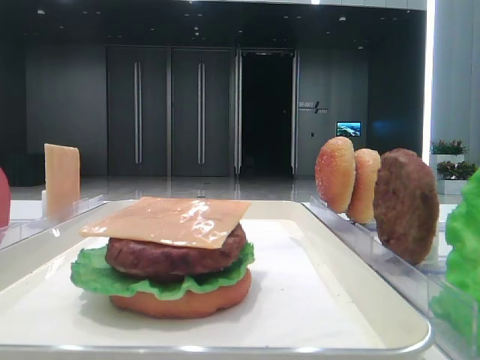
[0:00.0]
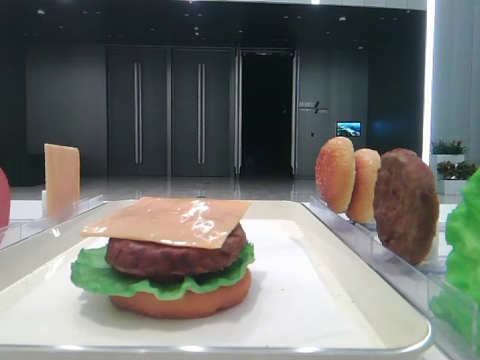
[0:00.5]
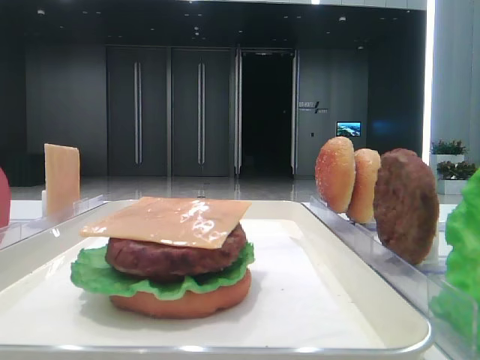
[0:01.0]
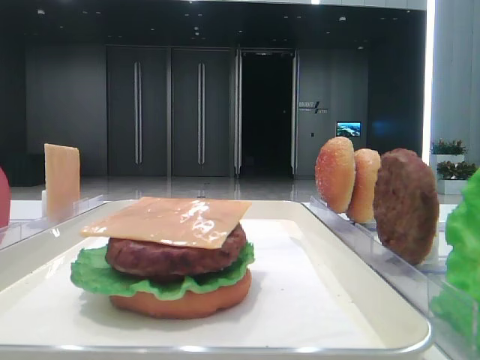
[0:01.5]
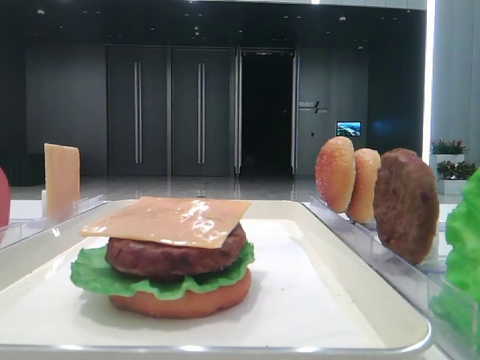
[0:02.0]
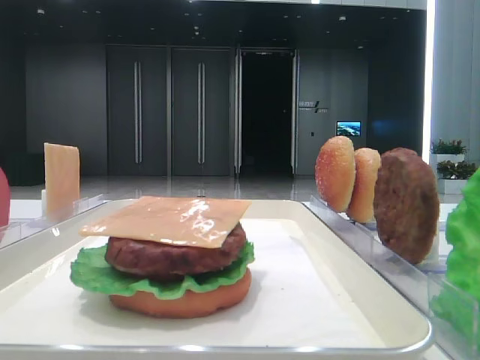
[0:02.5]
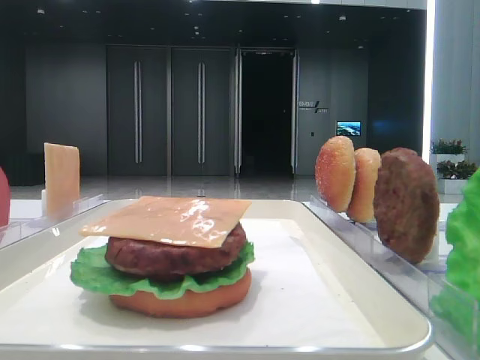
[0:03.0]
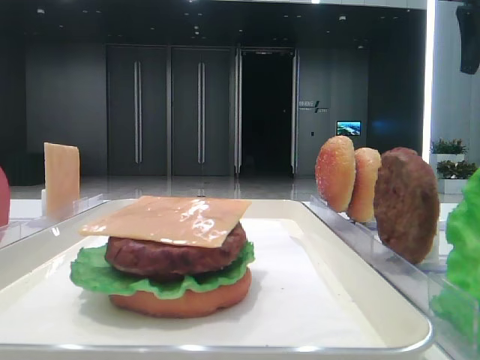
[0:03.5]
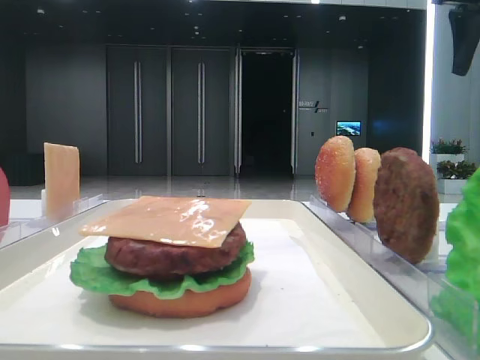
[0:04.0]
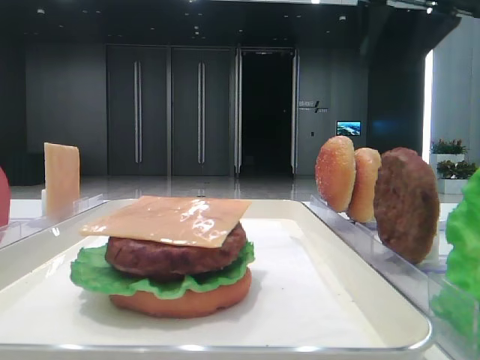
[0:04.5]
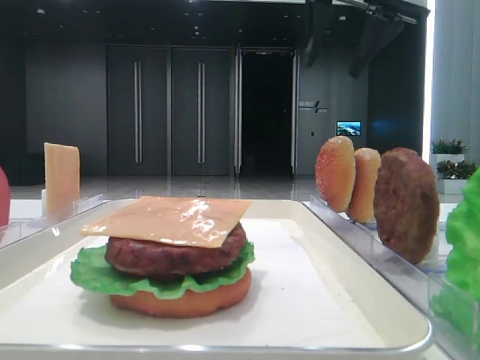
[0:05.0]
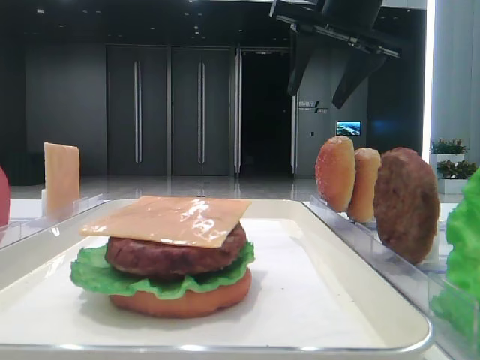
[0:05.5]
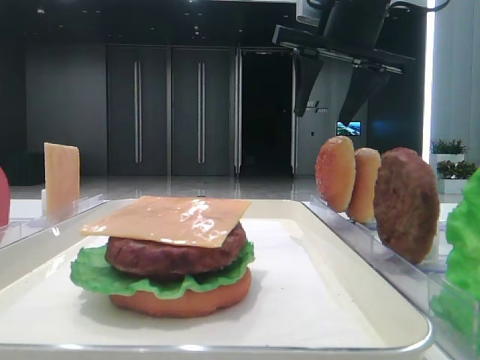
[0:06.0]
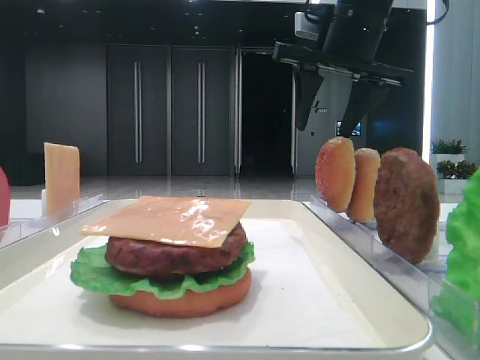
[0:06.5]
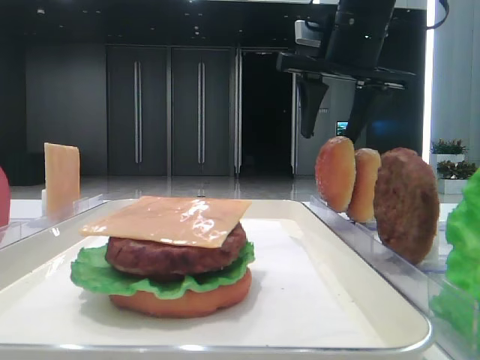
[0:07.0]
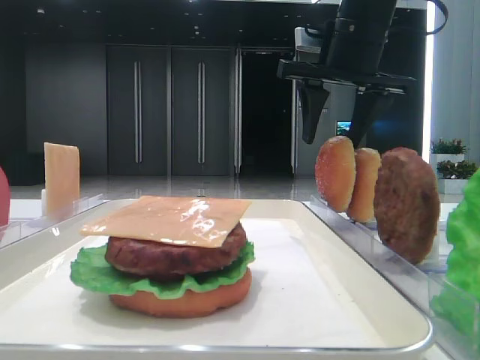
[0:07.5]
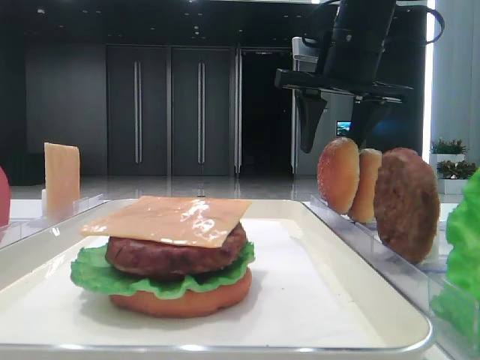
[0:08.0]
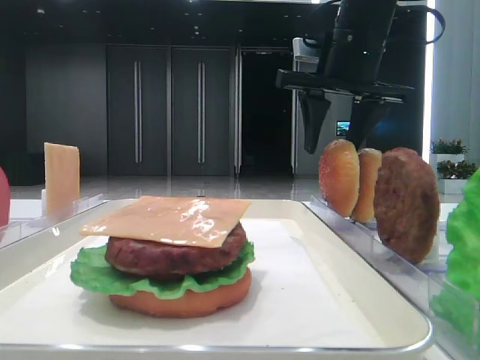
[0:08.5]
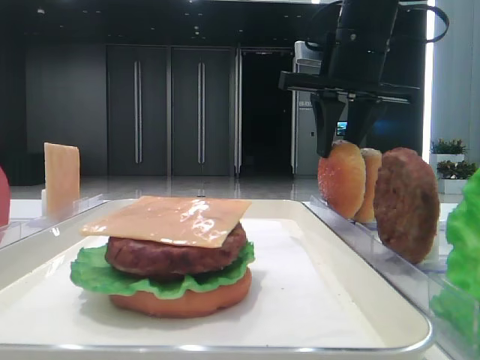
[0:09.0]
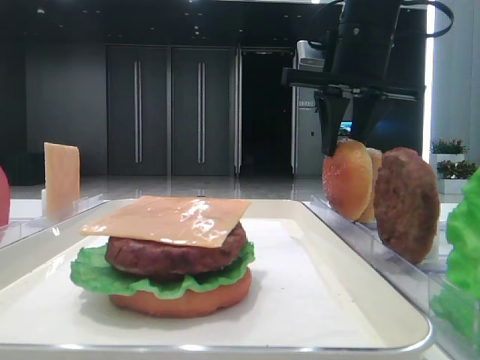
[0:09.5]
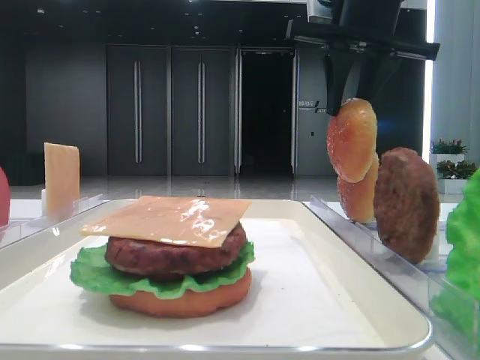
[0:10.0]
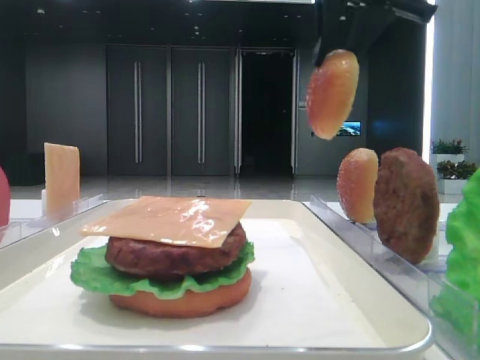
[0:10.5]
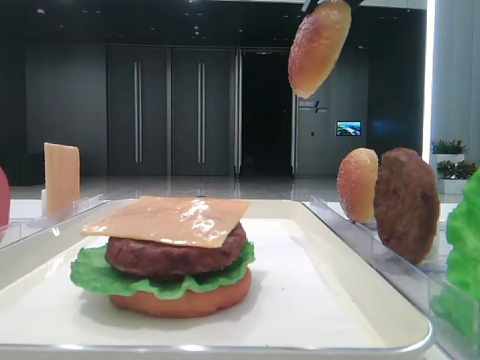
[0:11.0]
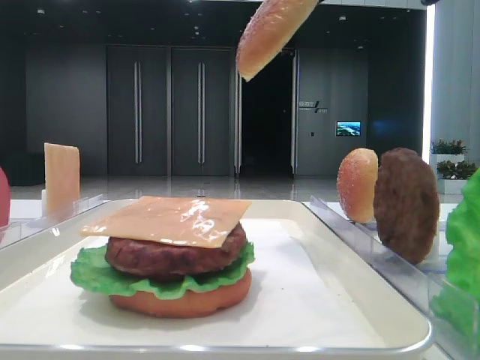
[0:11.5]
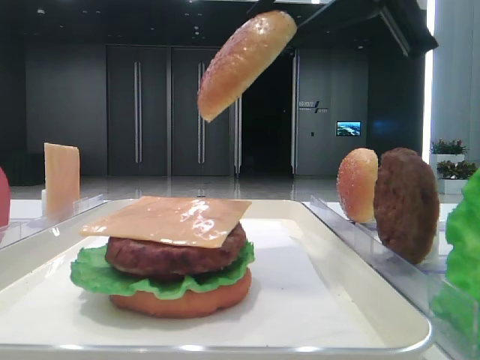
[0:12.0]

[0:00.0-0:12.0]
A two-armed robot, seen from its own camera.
Step, 0:00.0 to 0:09.0: Pick up the top bread slice with the right hand.
0:02.0 to 0:04.0: The right gripper shifts roughly 30 cm forward.
0:04.0 to 0:06.0: The right gripper travels to the left by about 15 cm.
0:06.0 to 0:08.0: The grippers move only a little.
0:08.0 to 0:10.0: The right gripper ends up approximately 5 cm from where it was, and closes.
0:10.0 to 0:12.0: The right gripper heads backward, covering some 15 cm.

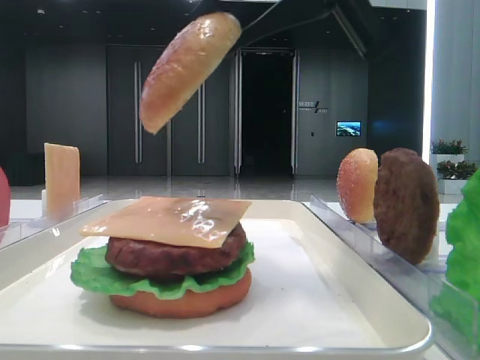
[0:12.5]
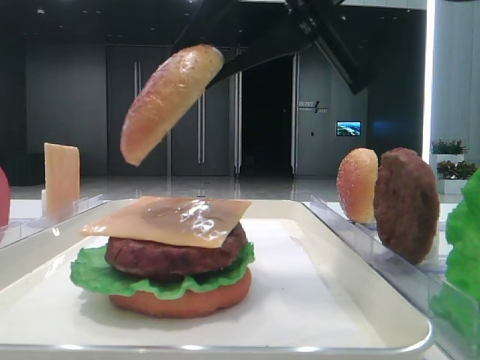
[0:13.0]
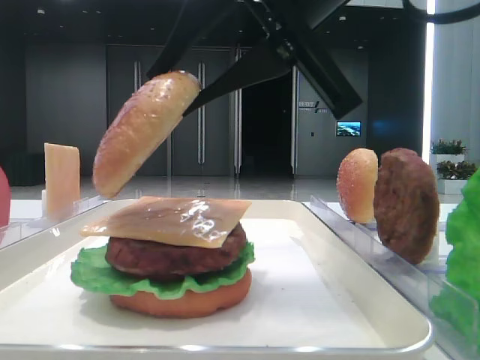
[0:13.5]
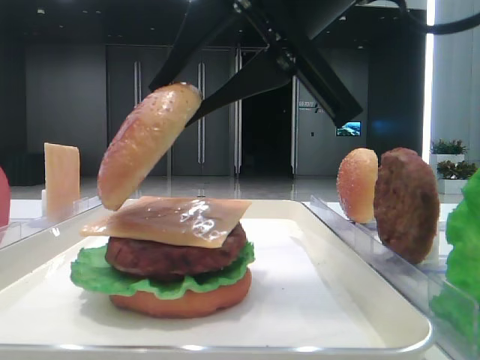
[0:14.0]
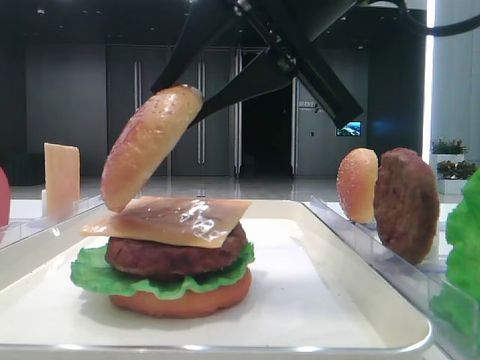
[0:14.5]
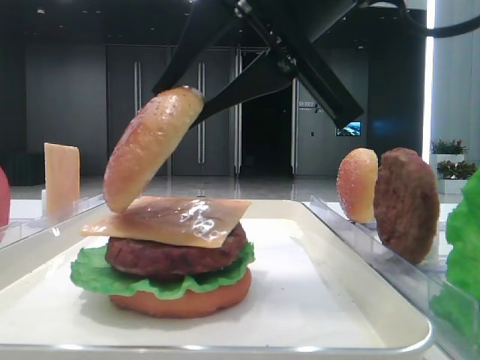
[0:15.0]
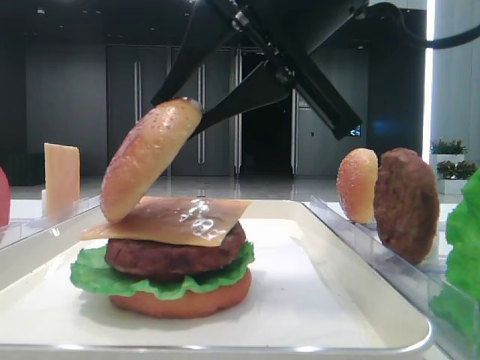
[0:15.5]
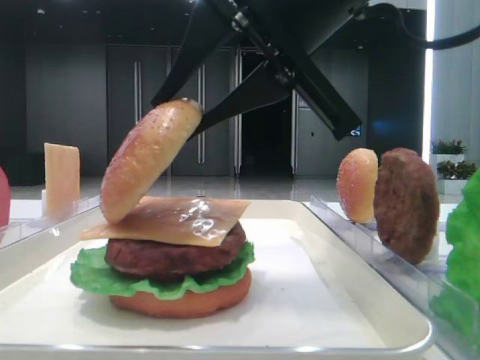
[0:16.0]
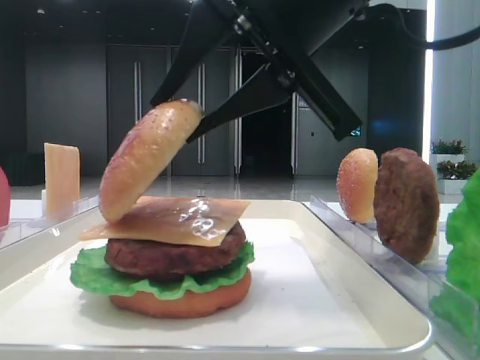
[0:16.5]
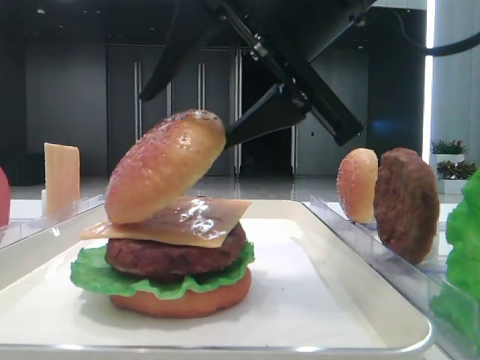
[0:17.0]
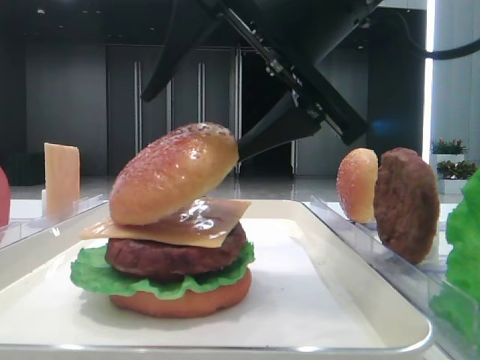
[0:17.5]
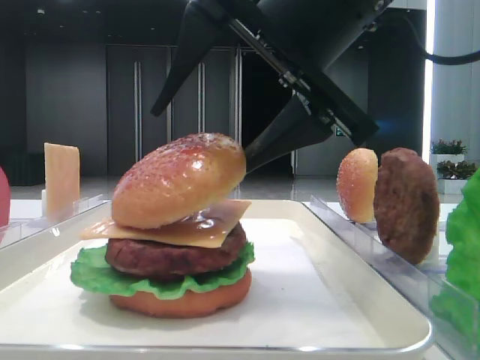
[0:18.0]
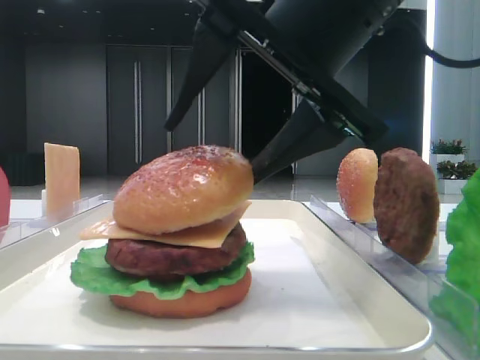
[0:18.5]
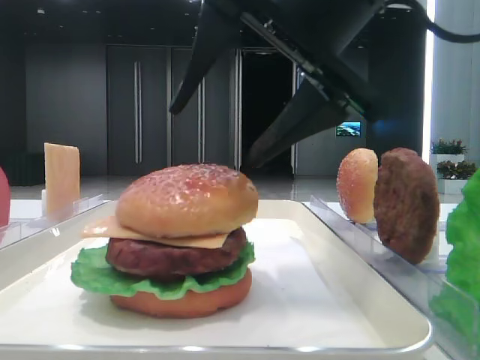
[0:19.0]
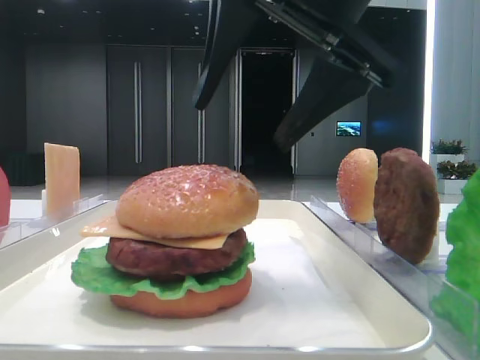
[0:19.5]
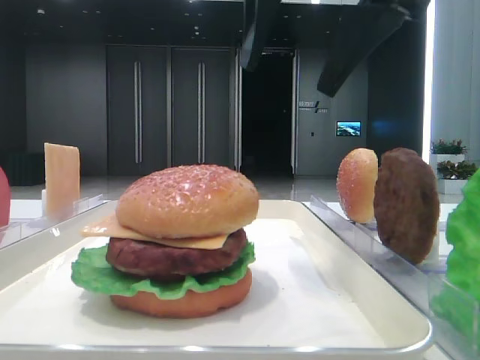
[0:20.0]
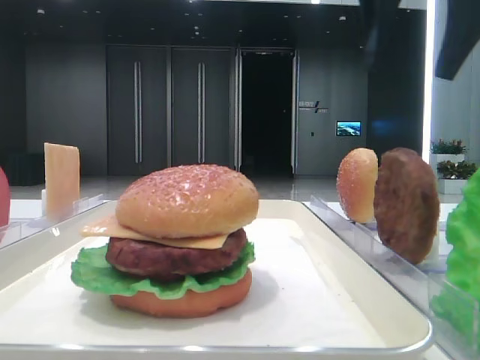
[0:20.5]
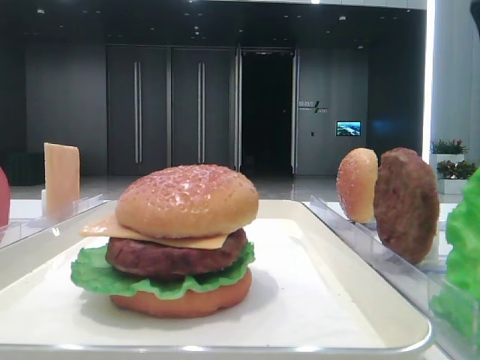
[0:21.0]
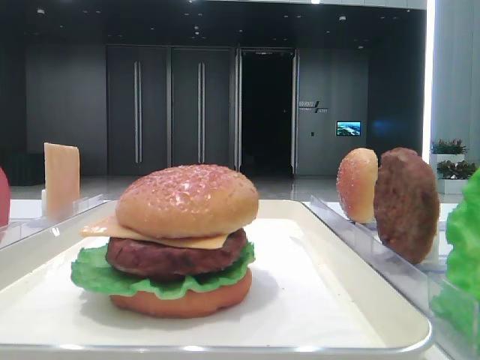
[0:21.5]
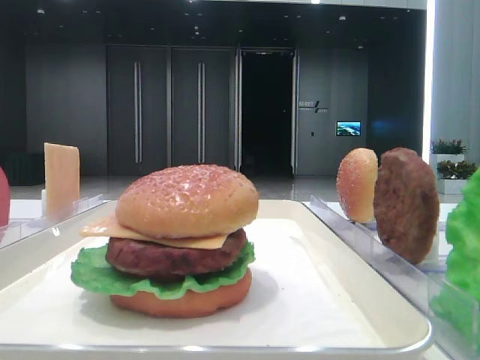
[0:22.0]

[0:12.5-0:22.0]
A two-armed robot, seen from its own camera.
Step, 0:12.5 to 0:18.5: Place the top bread slice on the cheese with the right hand.
0:12.5 to 0:14.5: The right gripper ends up roughly 5 cm from where it was.
0:14.5 to 0:16.5: Neither gripper changes place.
0:16.5 to 0:18.0: The right gripper opens its fingers.
0:18.0 to 0:20.0: The right gripper shifts some 5 cm upward.
0:20.0 to 0:22.0: The right gripper moves to the right, some 25 cm.

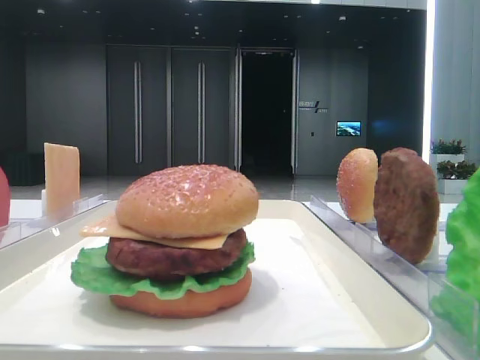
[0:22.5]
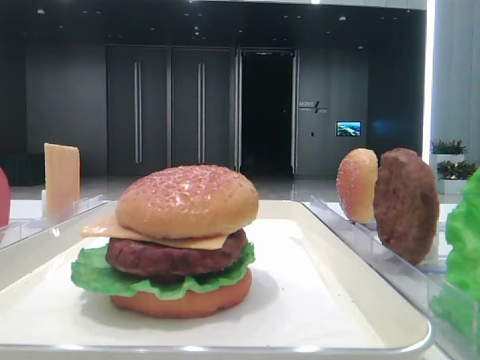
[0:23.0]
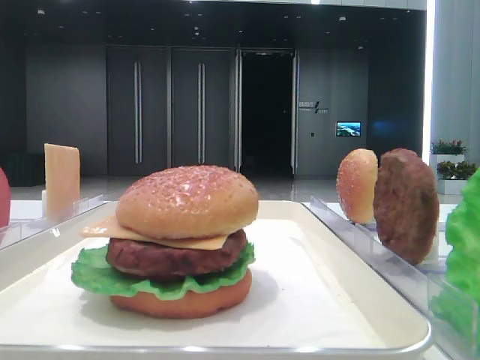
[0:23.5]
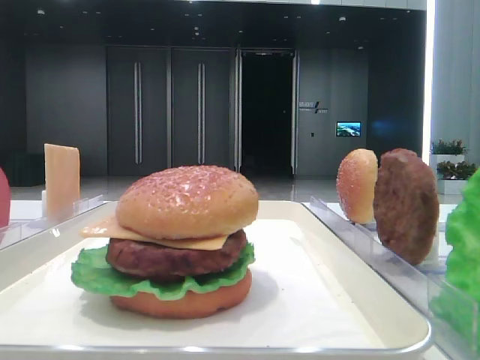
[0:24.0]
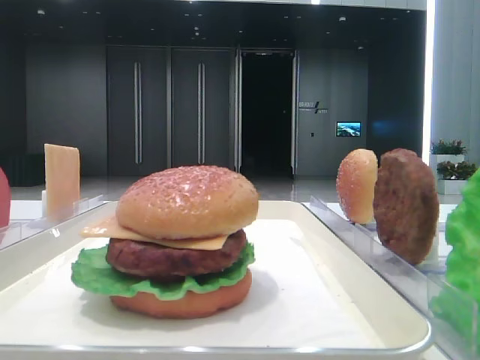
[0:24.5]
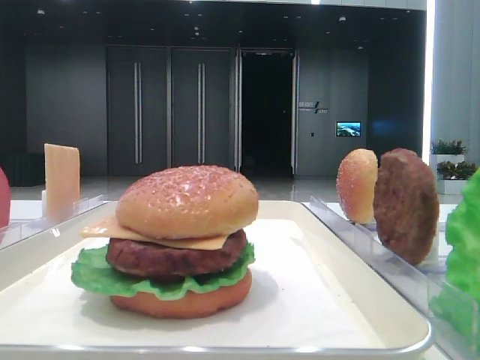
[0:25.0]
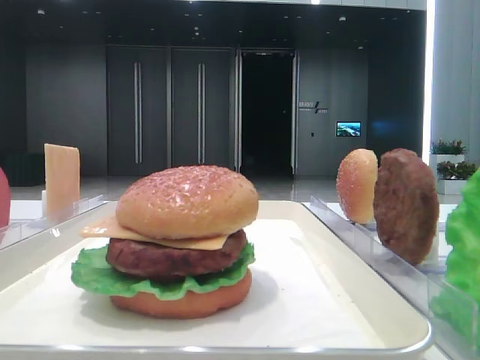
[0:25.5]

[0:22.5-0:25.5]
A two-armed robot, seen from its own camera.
0:22.5 to 0:24.0: The right gripper is displaced backward by some 25 cm.

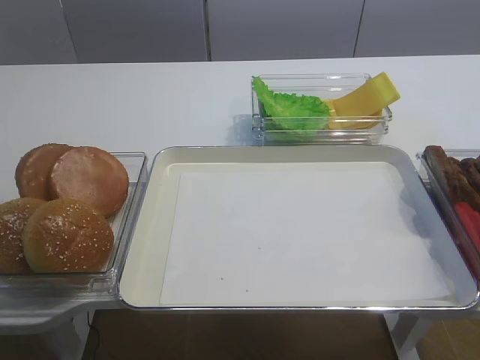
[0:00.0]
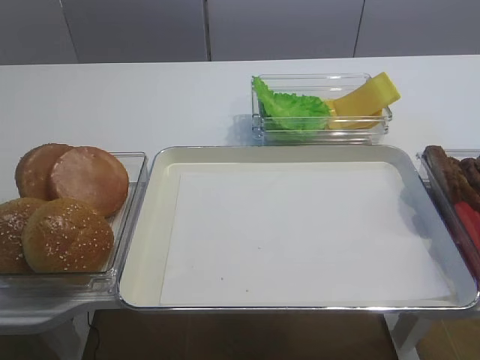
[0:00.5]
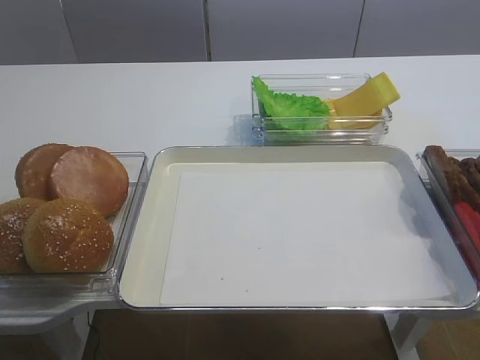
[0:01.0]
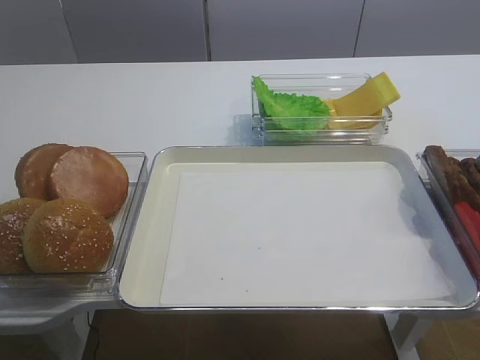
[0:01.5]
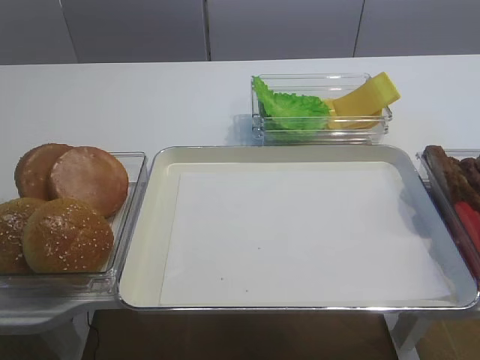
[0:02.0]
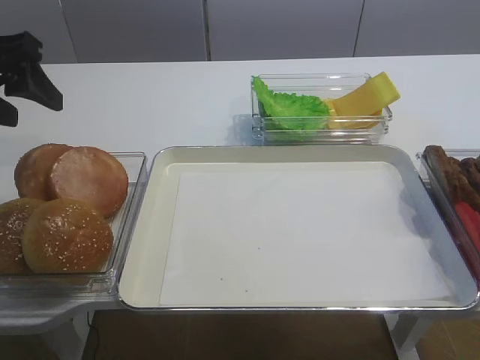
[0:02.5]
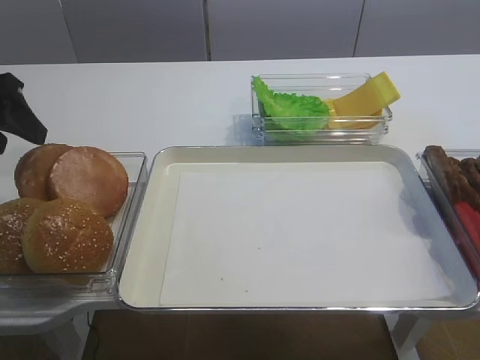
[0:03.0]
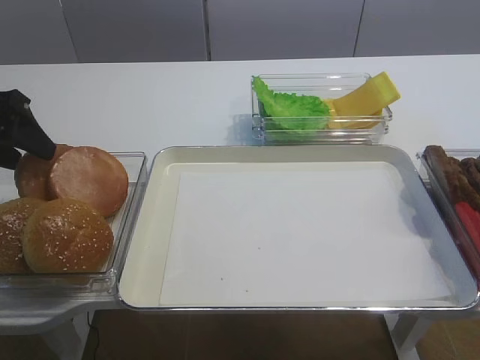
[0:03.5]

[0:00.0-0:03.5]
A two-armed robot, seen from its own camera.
0:02.0 to 0:03.5: The left gripper shifts about 15 cm forward and downward.
